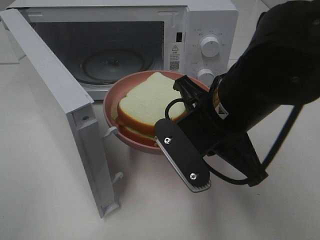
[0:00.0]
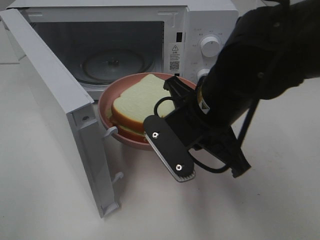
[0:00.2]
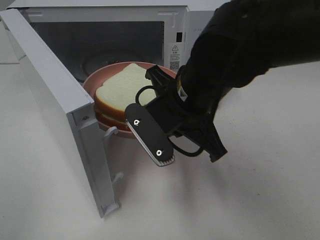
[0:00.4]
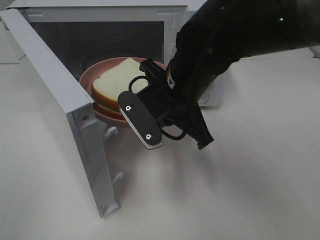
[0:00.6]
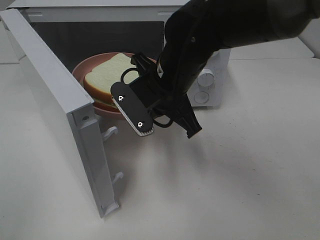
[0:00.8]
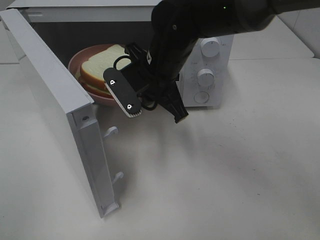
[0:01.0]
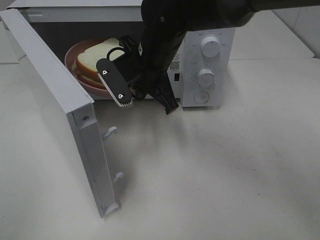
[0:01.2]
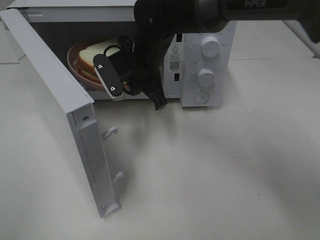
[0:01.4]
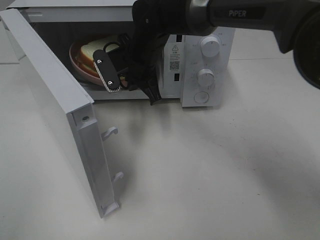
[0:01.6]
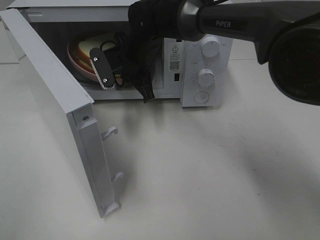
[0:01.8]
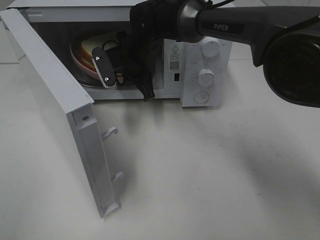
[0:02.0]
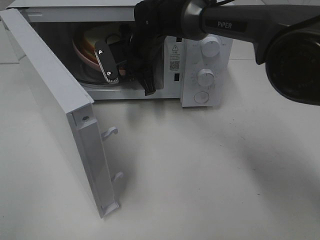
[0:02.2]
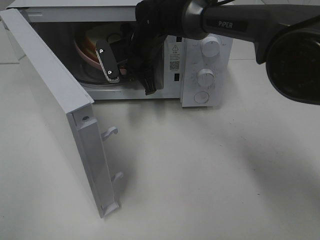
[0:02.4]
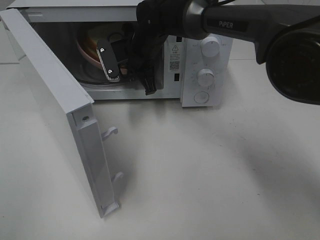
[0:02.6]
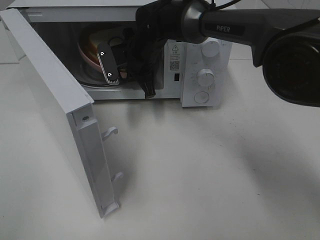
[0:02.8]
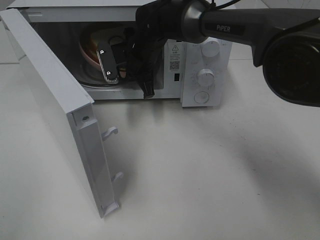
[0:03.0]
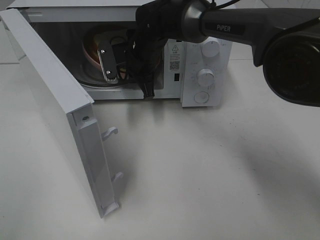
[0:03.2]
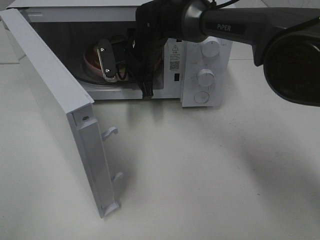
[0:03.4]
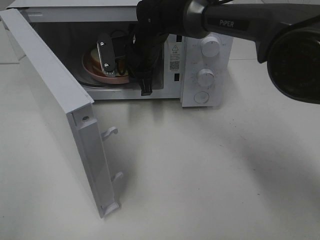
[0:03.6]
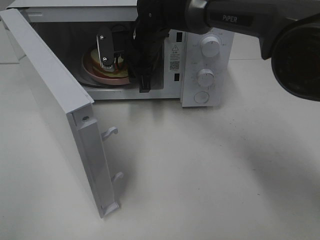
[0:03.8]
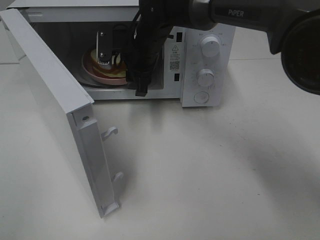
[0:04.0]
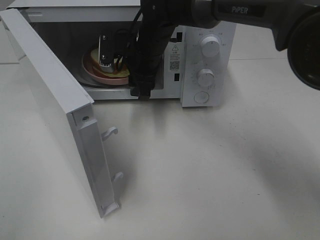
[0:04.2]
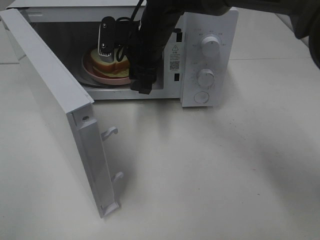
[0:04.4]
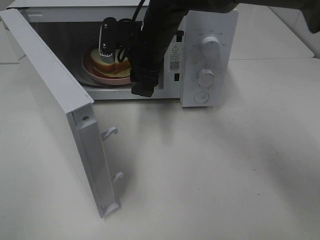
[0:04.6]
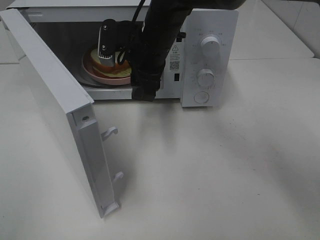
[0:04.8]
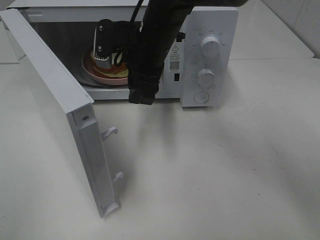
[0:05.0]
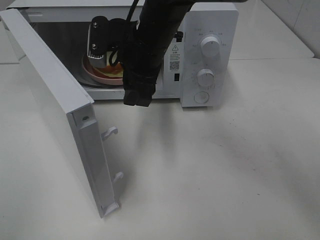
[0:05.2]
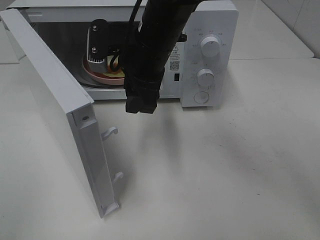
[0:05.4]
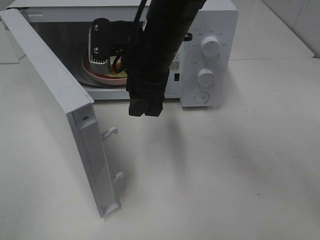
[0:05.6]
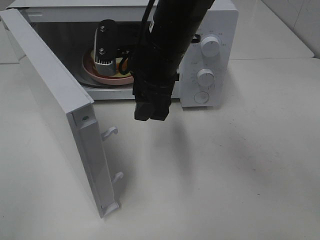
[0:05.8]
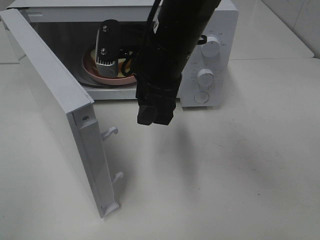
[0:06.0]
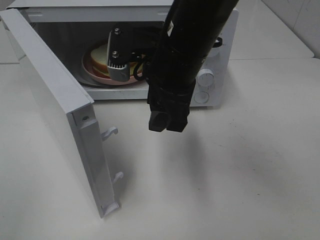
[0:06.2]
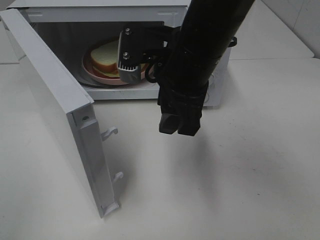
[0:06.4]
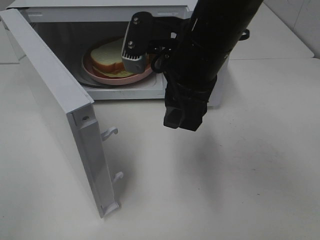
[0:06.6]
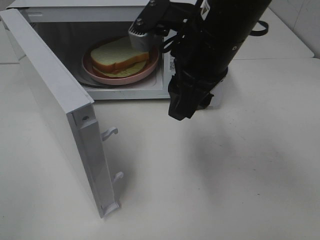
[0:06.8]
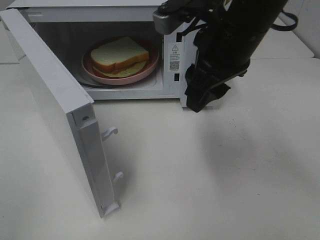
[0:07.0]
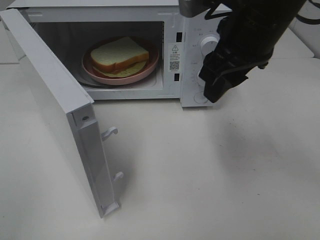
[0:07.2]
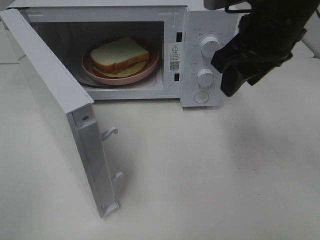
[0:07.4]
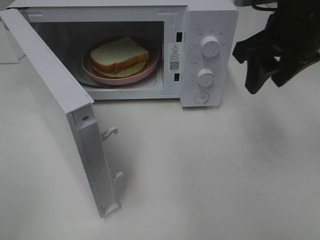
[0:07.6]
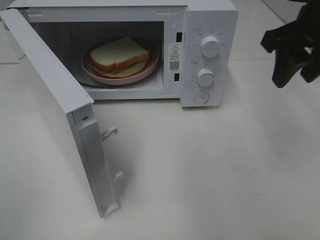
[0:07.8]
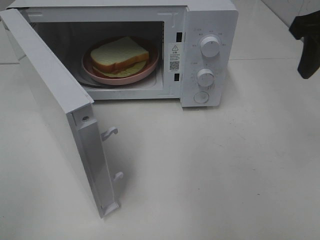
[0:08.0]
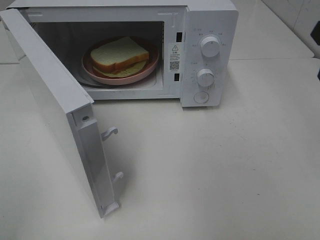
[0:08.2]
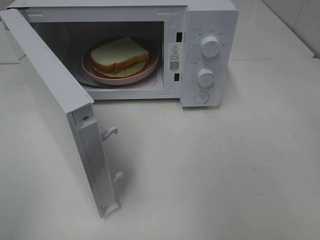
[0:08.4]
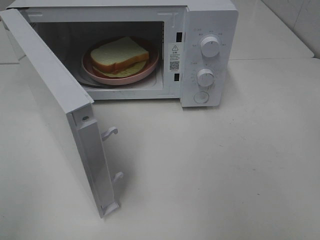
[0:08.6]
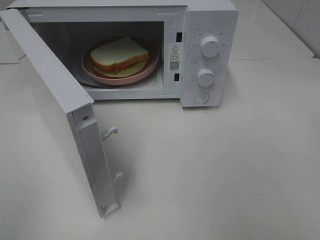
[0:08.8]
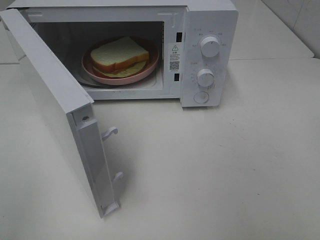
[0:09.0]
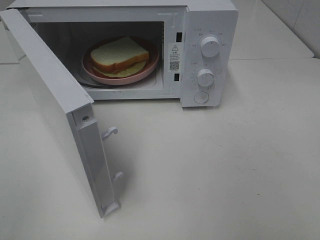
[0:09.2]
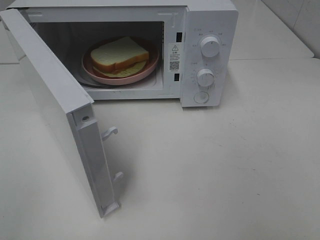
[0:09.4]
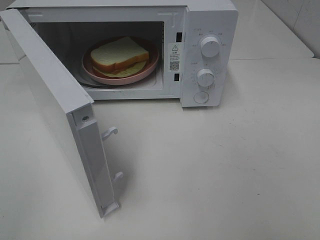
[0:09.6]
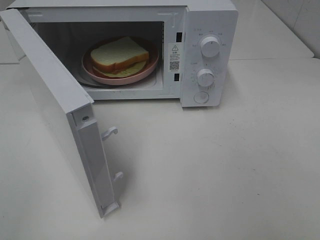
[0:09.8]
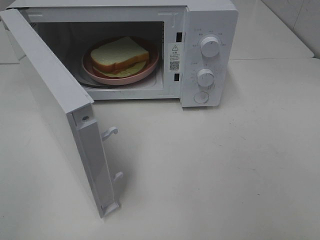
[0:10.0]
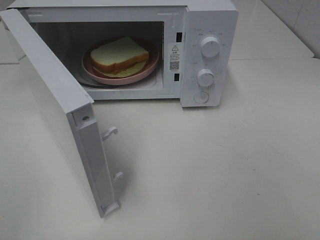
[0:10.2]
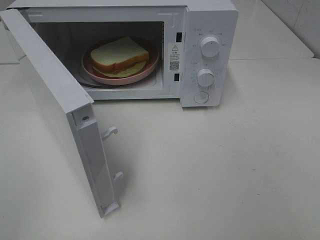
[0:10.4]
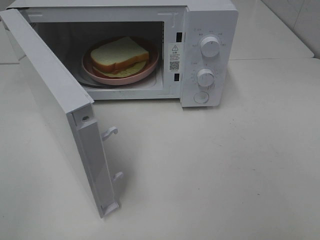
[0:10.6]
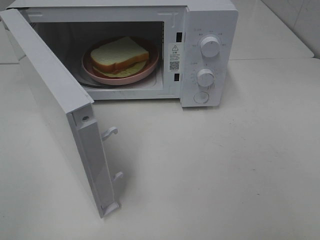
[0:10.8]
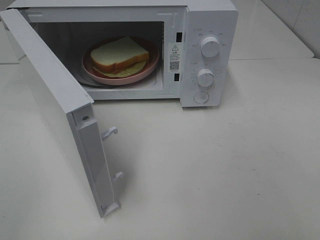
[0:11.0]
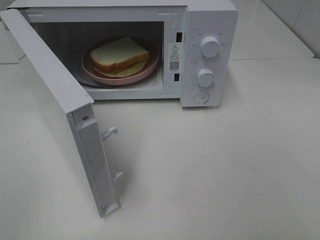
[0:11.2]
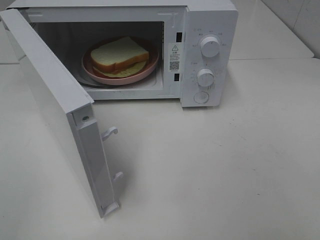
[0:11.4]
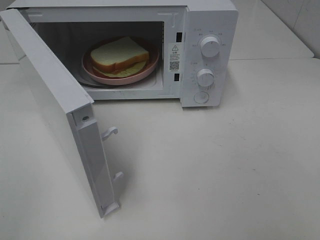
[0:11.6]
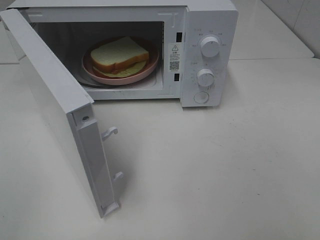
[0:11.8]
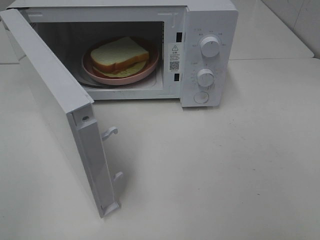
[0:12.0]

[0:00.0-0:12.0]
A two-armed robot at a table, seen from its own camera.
Task of the whole recording: Heat Sandwich.
Step, 0:00.0 to 0:04.2: Right hand: place the plate in the microwave.
0:00.0 to 0:01.6: The right gripper heads forward and to the left, covering approximately 25 cm.
0:01.6 to 0:03.0: The grippers move only a little.
0:03.0 to 0:04.4: The right gripper moves approximately 5 cm, and opens up.
0:04.4 to 0:06.0: The right gripper is displaced backward by roughly 10 cm.
0:06.0 to 0:07.6: The right gripper goes roughly 15 cm to the right.
0:07.6 to 0:09.0: The right gripper shifts some 20 cm backward and to the right.
0:10.4 to 0:12.0: Neither gripper changes place.

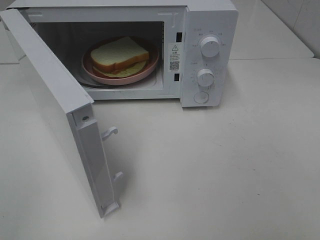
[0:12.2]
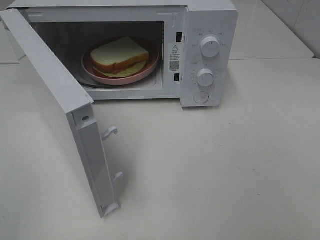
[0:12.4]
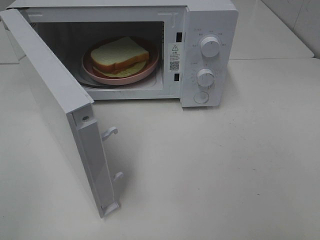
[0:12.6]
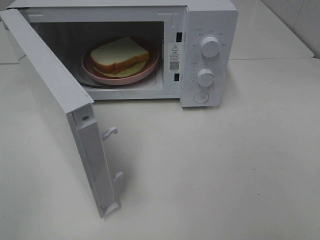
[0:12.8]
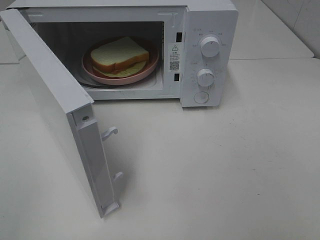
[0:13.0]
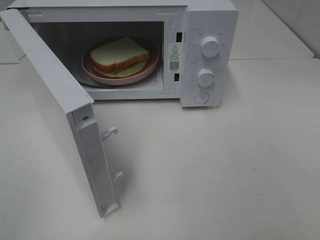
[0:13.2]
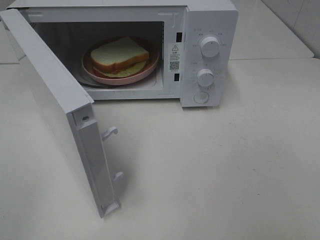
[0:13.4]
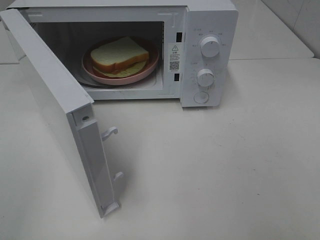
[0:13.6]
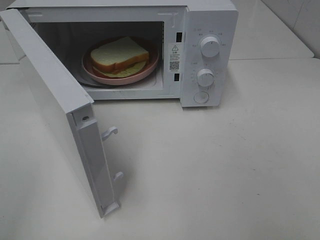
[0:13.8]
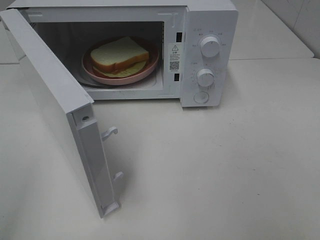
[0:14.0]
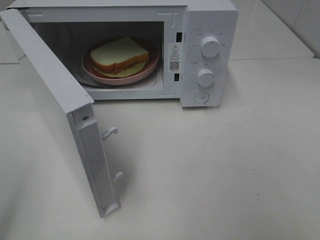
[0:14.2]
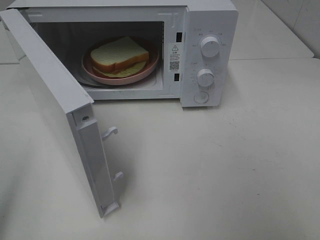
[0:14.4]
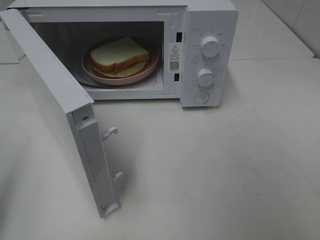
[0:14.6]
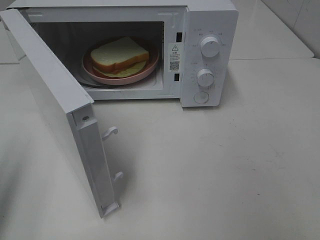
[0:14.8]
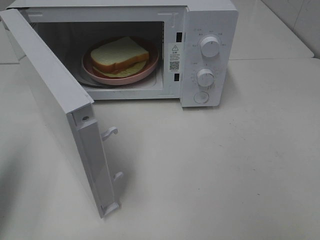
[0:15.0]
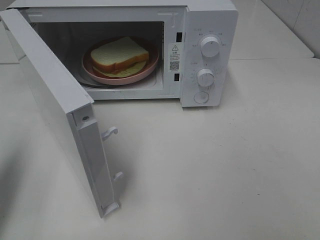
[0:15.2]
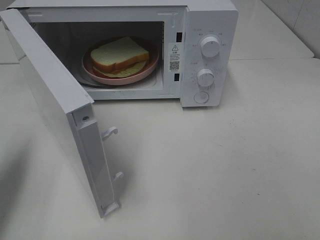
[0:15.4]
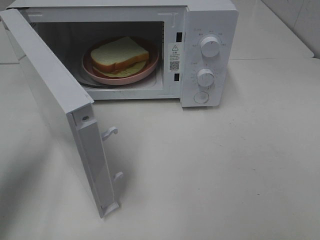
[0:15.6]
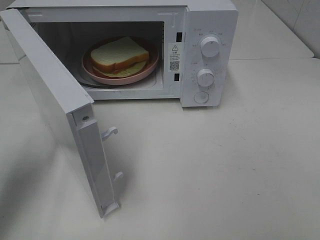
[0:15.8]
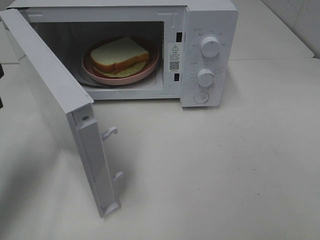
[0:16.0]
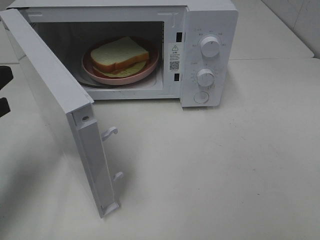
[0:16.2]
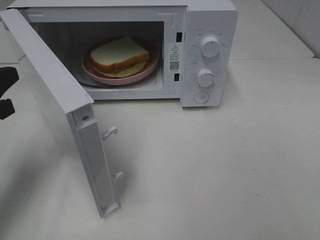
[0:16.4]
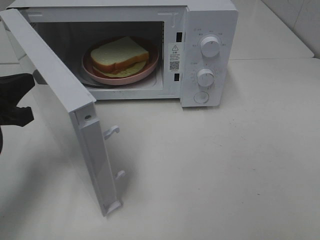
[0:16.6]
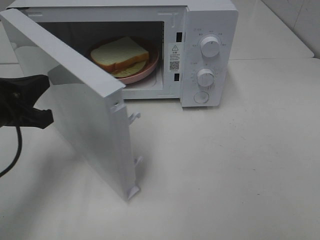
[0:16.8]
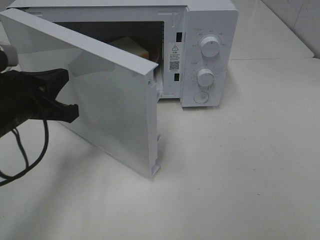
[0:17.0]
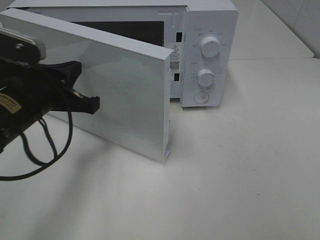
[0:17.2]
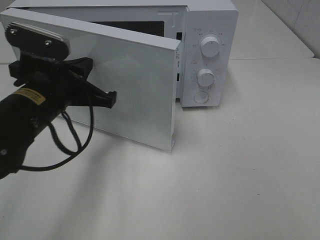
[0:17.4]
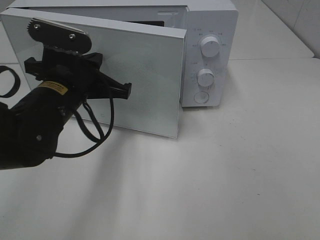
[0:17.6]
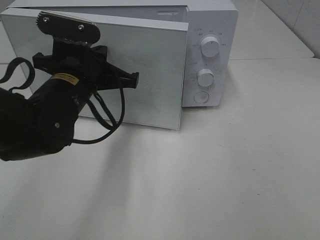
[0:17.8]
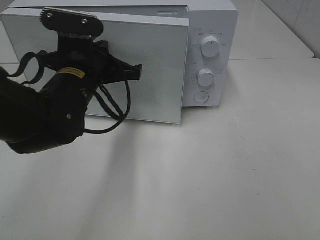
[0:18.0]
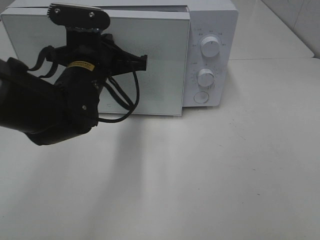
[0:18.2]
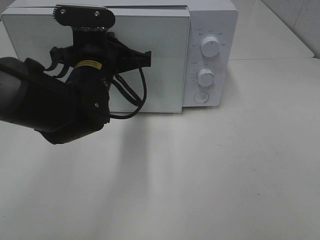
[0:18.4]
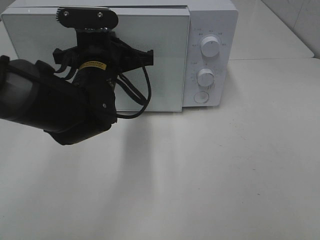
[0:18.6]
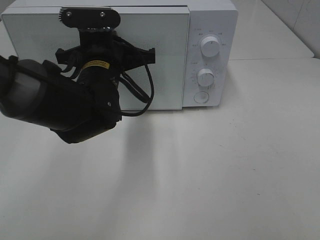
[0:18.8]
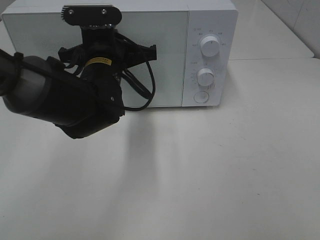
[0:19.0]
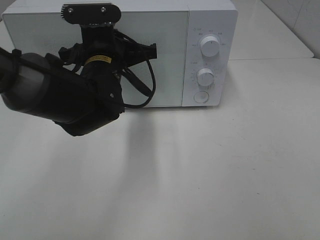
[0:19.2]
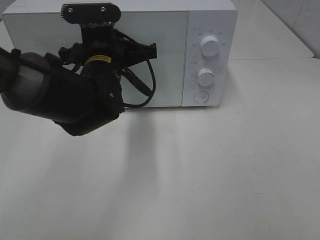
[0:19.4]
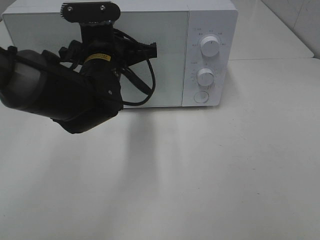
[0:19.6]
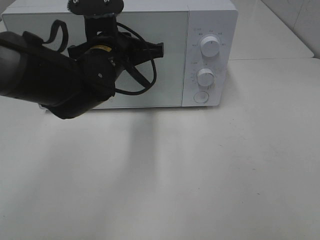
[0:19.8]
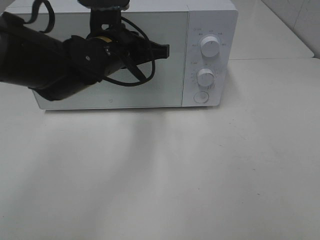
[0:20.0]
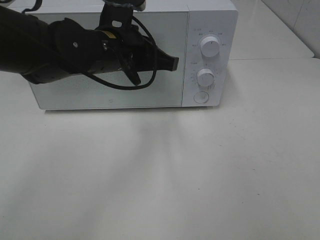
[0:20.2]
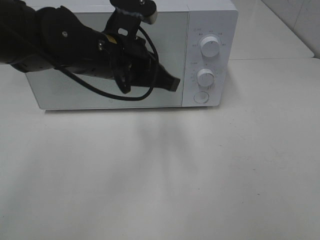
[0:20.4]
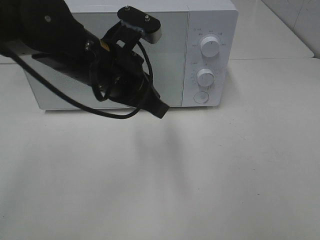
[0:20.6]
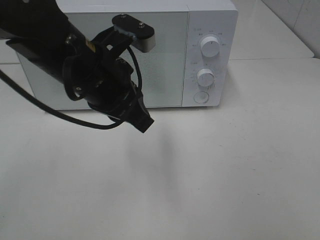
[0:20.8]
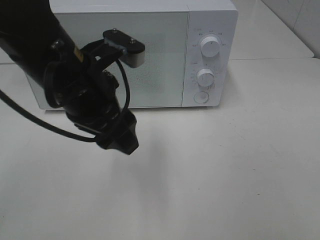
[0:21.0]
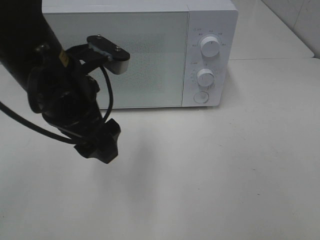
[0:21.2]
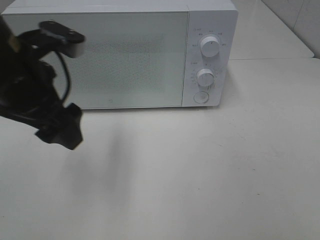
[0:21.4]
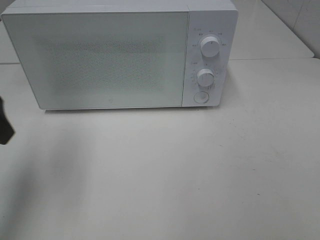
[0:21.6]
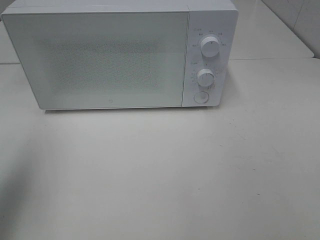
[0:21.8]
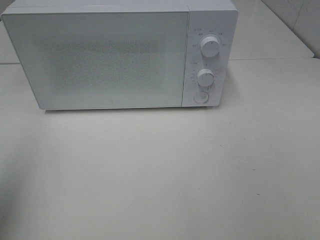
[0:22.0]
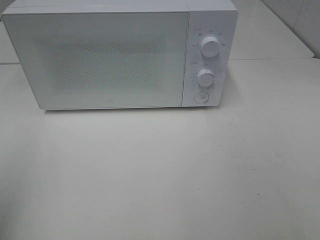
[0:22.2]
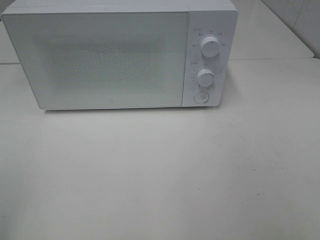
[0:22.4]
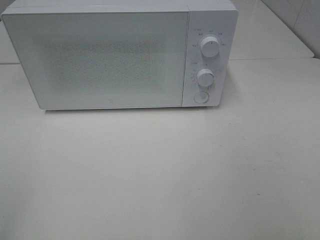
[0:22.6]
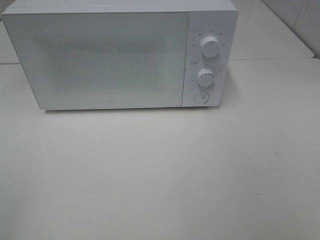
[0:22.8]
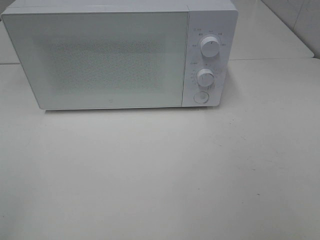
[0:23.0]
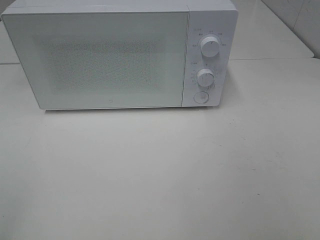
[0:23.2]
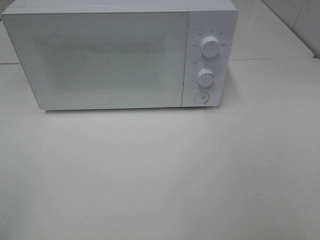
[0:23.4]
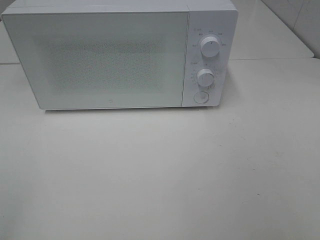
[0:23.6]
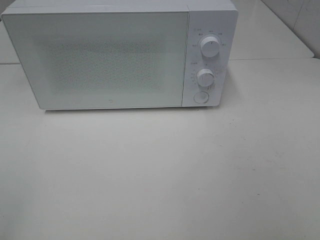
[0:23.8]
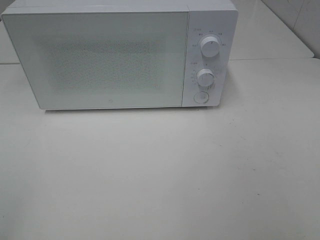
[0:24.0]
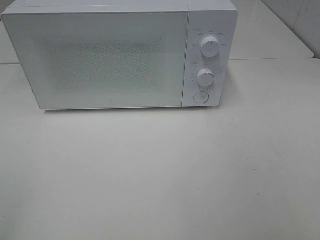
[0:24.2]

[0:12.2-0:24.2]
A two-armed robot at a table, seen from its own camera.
Task of the whole recording: Heat Sandwich.
Step, 0:12.2 to 0:20.6: Left hand: close the microwave door.
0:13.8 to 0:15.2: The left gripper shifts about 15 cm forward, and closes.
0:15.2 to 0:16.6: The left gripper heads downward, to the right and forward, covering about 10 cm.
0:16.6 to 0:18.2: The left gripper goes about 20 cm to the right and forward.
0:18.2 to 0:19.8: There are only small adjustments of the grippers.
0:19.8 to 0:21.2: The left gripper moves backward and upward, approximately 10 cm, and opens its fingers.
0:21.2 to 0:22.6: The left gripper is displaced backward and to the left by some 30 cm.
0:22.6 to 0:24.2: The two grippers keep their place.
